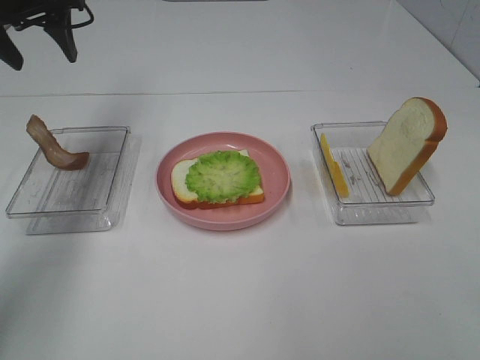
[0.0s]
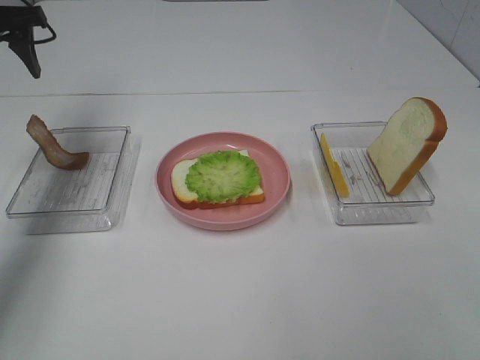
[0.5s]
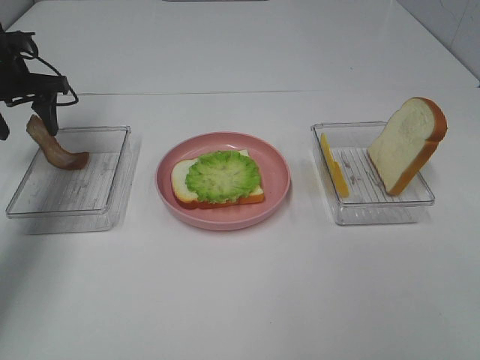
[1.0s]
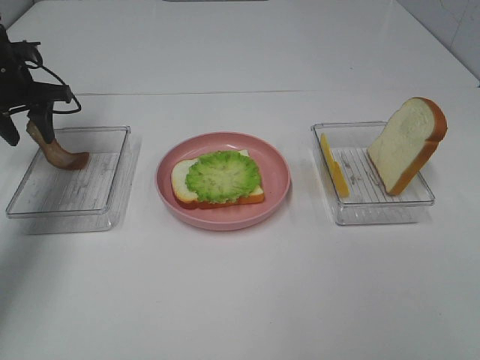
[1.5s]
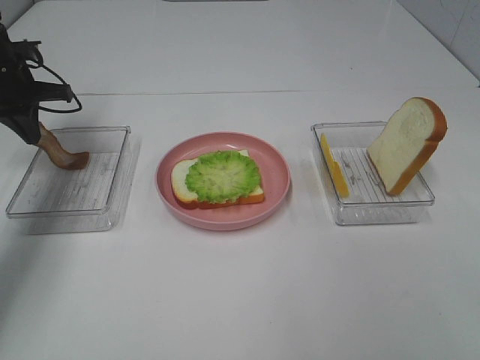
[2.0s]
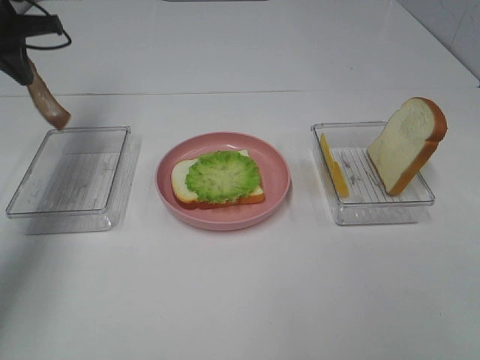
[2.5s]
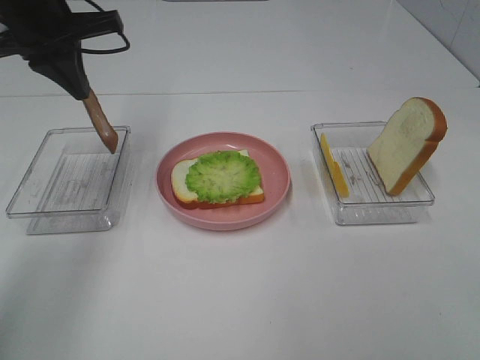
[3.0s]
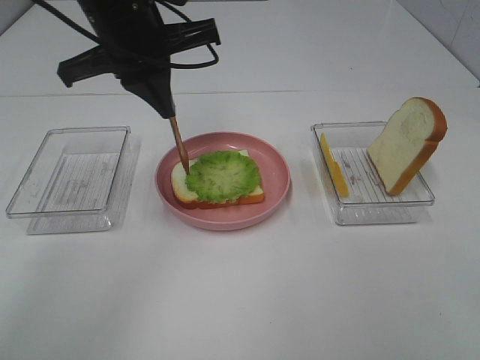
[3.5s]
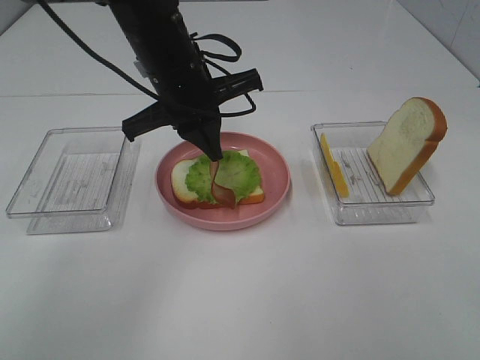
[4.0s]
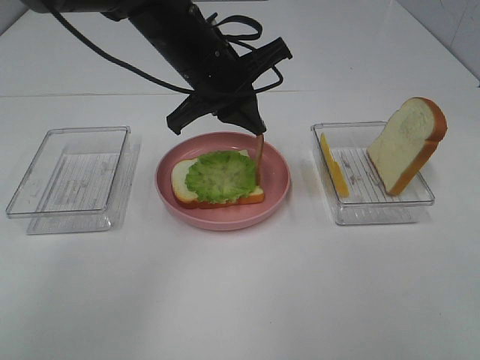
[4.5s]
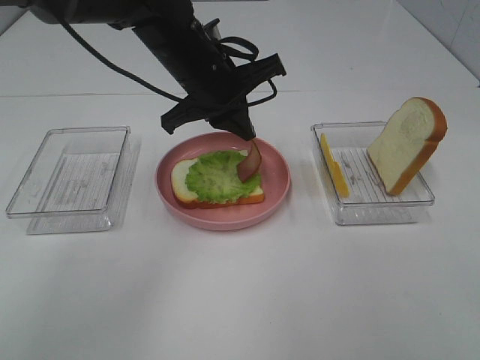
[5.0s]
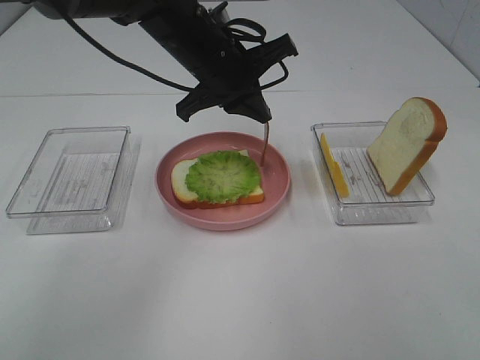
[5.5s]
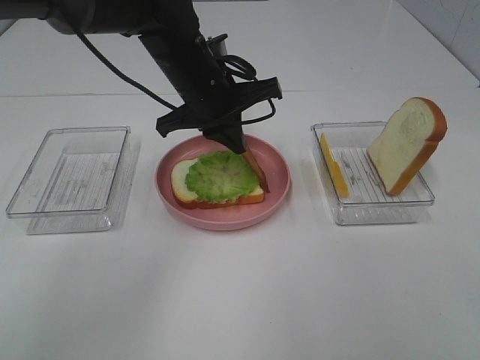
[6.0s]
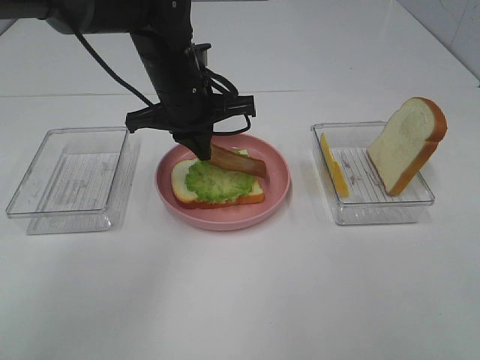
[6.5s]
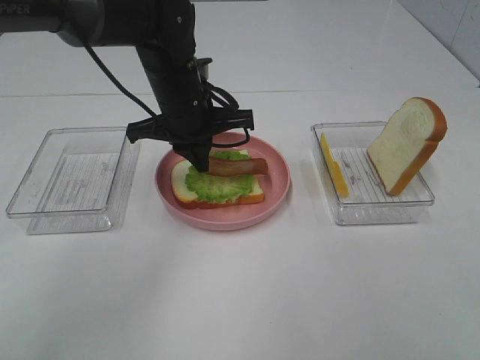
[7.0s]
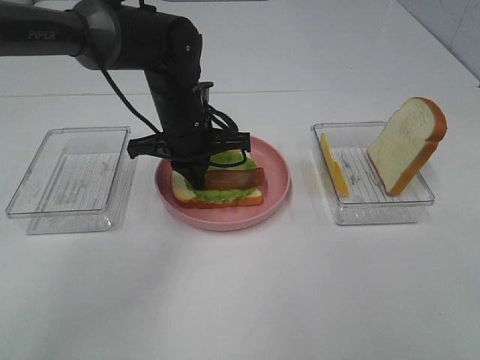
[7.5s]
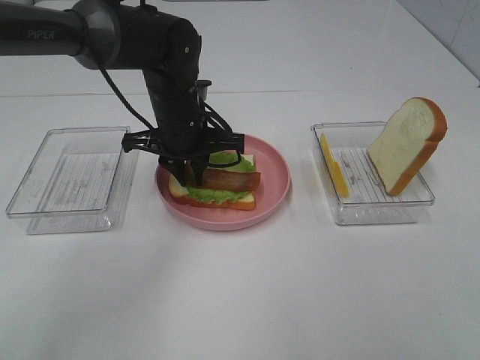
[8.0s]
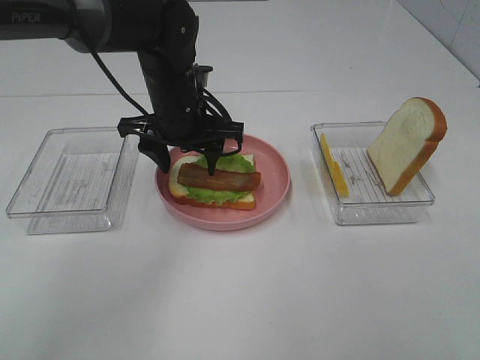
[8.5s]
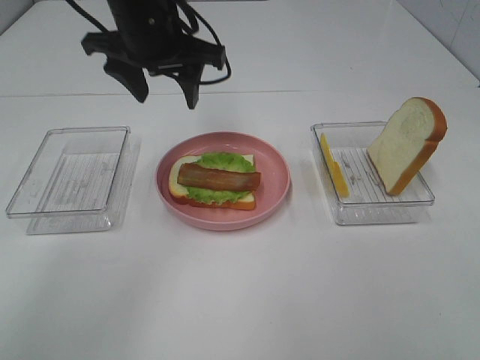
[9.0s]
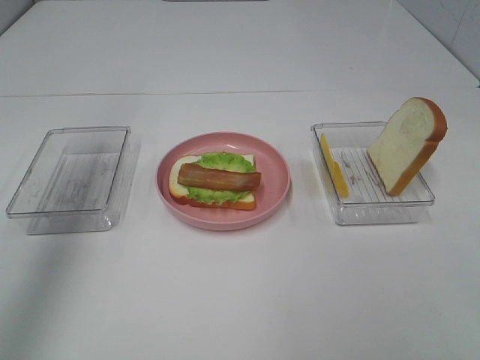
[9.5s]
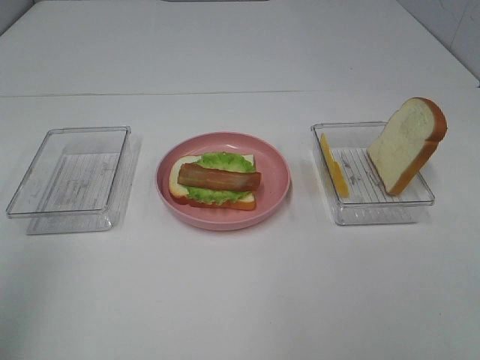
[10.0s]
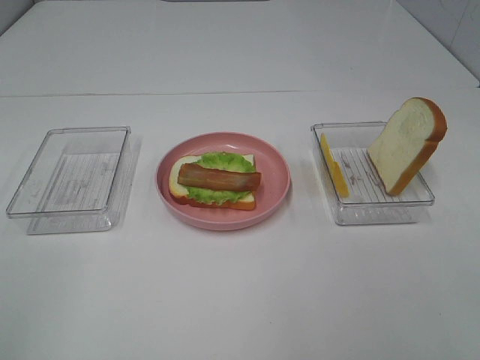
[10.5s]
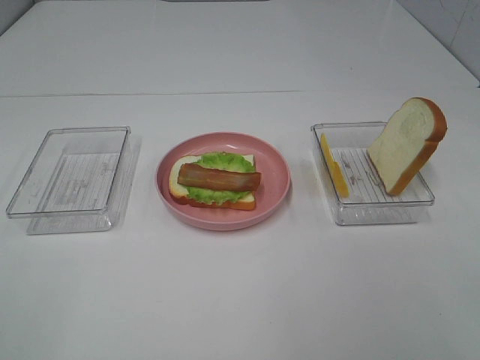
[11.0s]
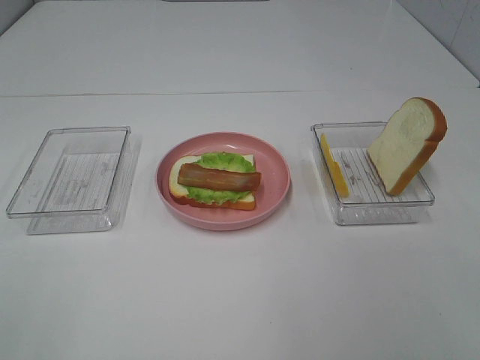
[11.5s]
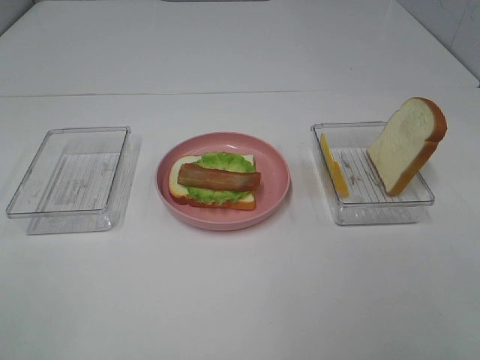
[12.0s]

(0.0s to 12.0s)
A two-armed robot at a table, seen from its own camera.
Task of the whole recording: Make sandwiches.
Step, 0.0s - 2.0s: Left hand:grab the bacon.
Step, 2.5s - 8.0s: Left hand:Place bacon on lettuce slice.
0.0s - 2.0s: The left gripper moves downward and to the left, approximately 15 cm, and closes its fingers.
2.0s - 4.0s: The left gripper goes approximately 25 cm to the right.
6.0s - 8.0s: The left gripper shifts about 5 cm downward.
8.0s - 10.0s: The left gripper moves backward, upward and to the left, some 50 cm, and opens its fingers.
10.0s - 12.0s: The left gripper moves downward and backward, roughly 20 cm.

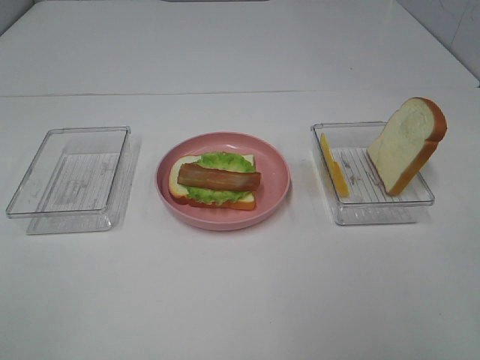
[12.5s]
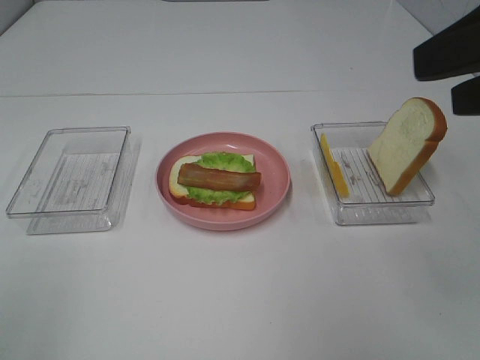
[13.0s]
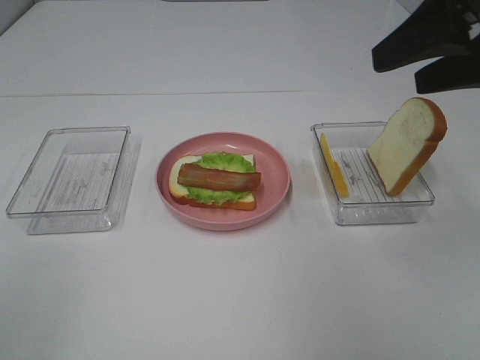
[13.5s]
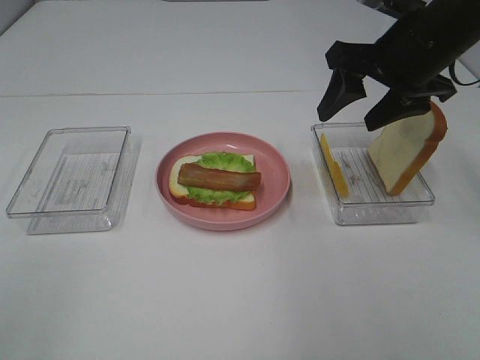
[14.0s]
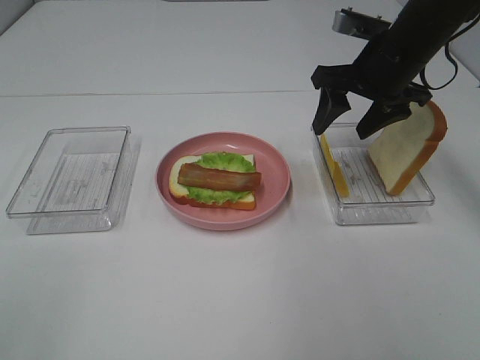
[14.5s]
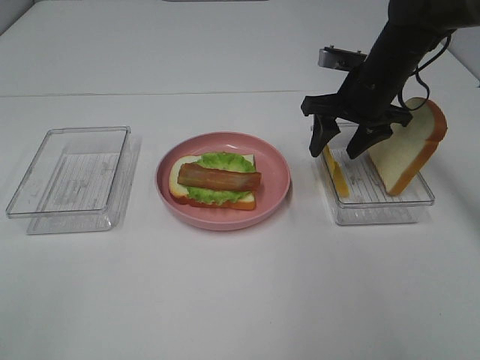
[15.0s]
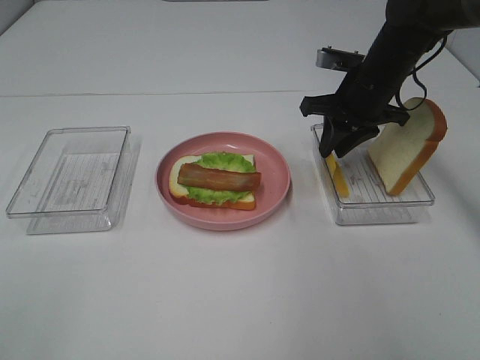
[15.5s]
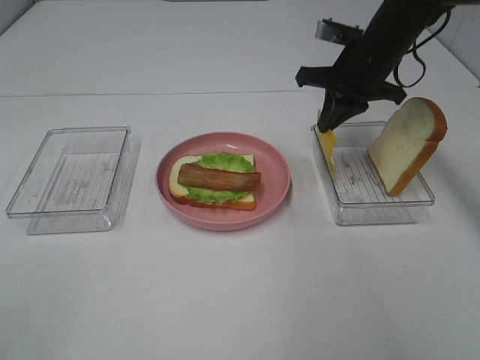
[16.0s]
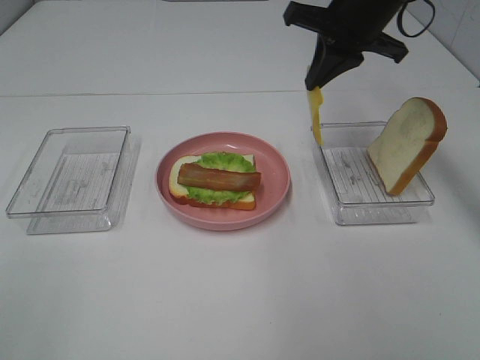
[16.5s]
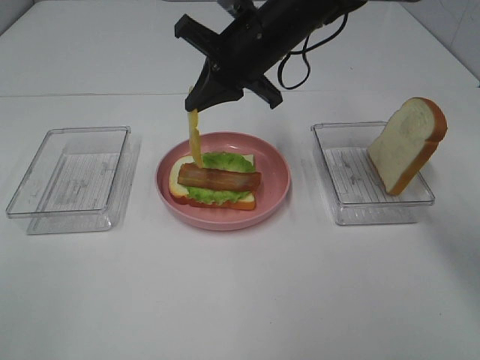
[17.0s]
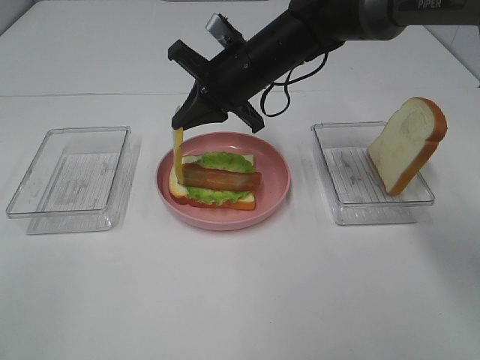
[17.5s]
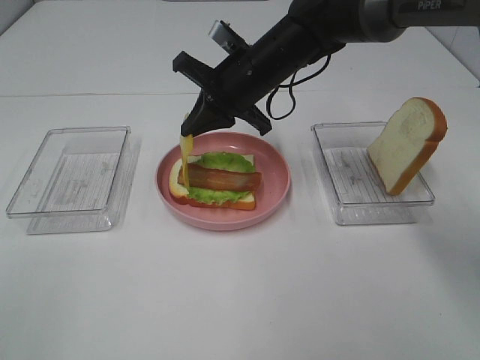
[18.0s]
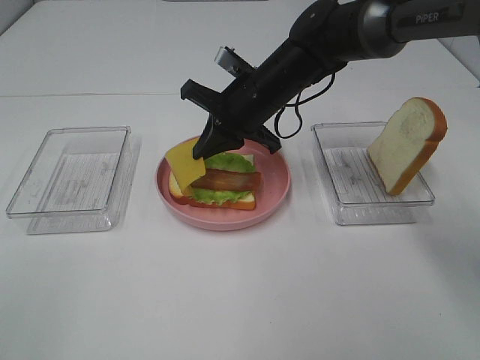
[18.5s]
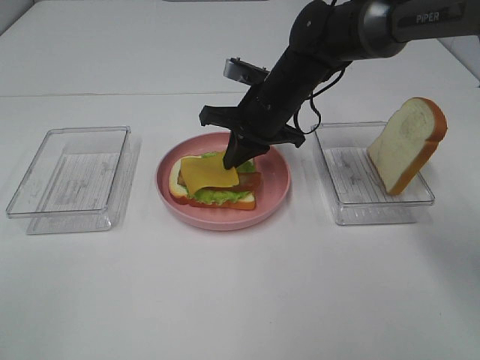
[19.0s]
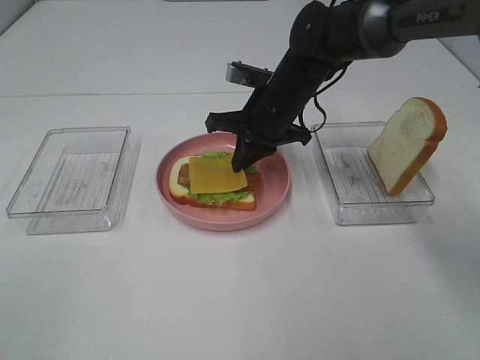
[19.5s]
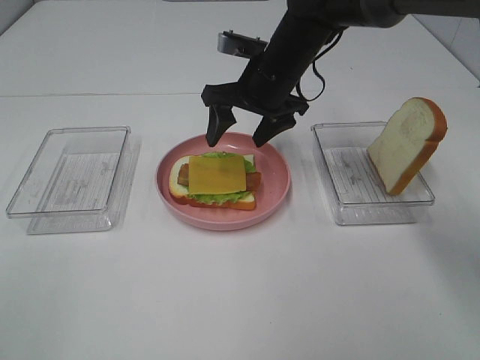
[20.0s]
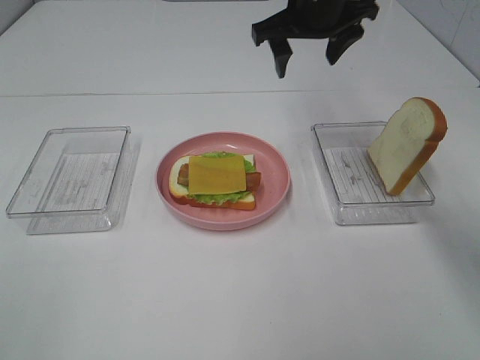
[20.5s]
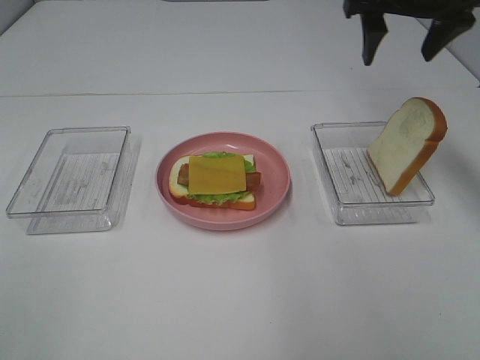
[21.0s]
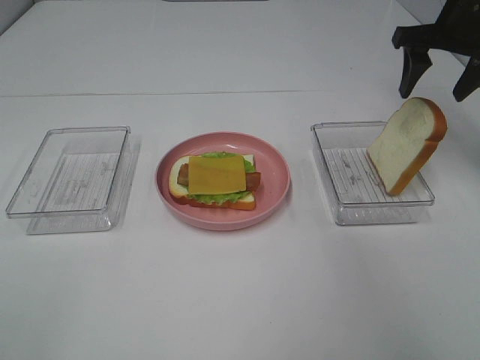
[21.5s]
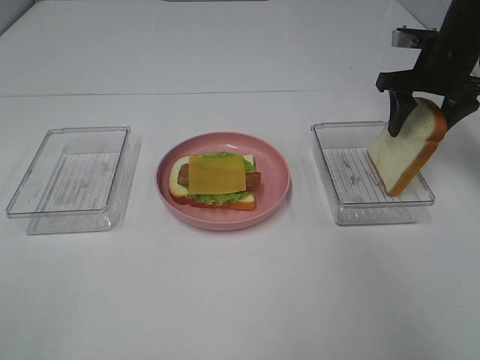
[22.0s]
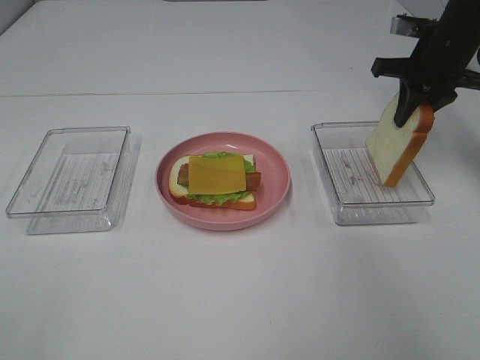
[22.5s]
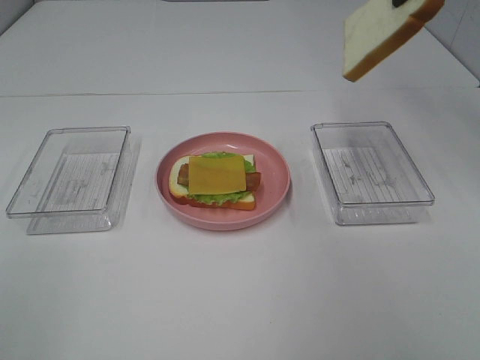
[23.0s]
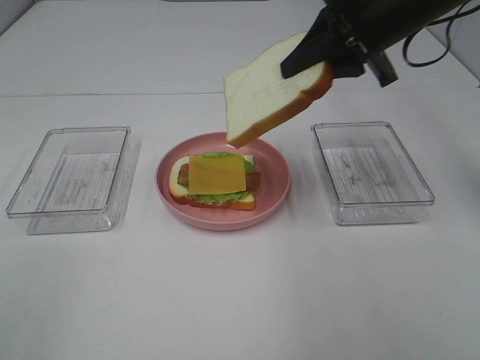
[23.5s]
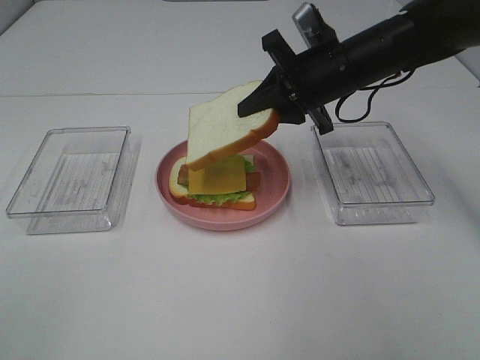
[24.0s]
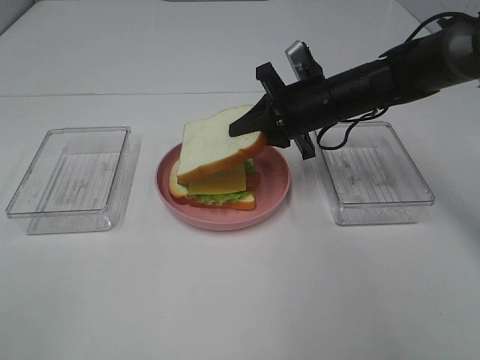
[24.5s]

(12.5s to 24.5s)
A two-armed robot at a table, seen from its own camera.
Task of the whole recording: Make sandwiches.
Step, 12.5s - 15.5s: Right hand:grab the cheese slice.
Step, 16.0s - 19.5s: Right hand:Place the cheese slice on top of the bacon.
Step, 20.0s - 22.0s: Right hand:grab the bread slice.
12.5s - 14.5s: The right gripper travels forward by about 35 cm.
14.5s - 16.5s: The right gripper travels upward and to the left by about 10 cm, and closes its fingers.
16.5s - 18.5s: The right gripper goes approximately 15 cm downward and to the left.
18.5s - 20.5s: The right gripper travels upward and to the right by approximately 15 cm, and opens up.
20.5s - 22.5s: The right gripper shifts approximately 20 cm to the right, and closes.
22.5s - 24.5s: The right gripper heads to the left and downward, covering approximately 15 cm.

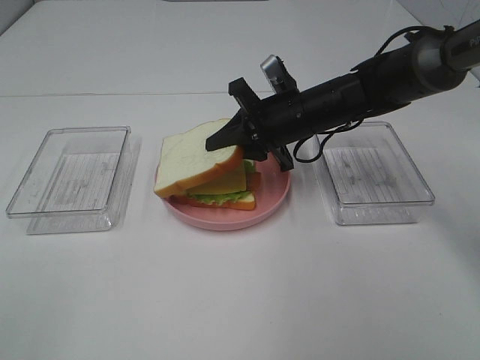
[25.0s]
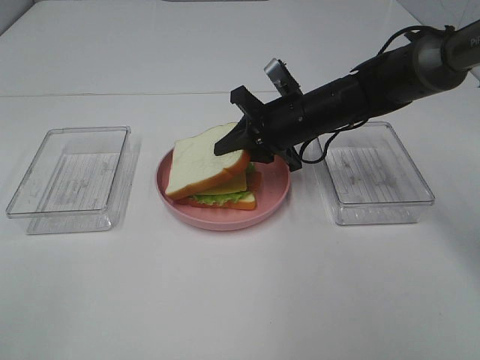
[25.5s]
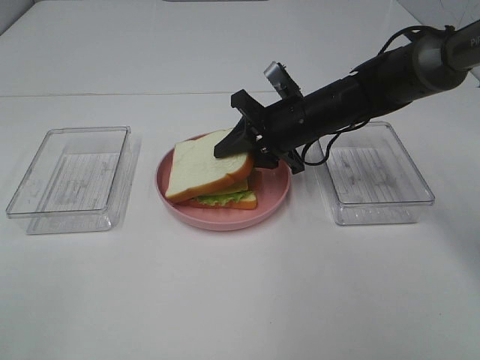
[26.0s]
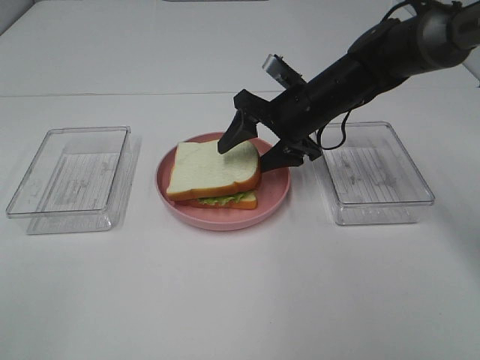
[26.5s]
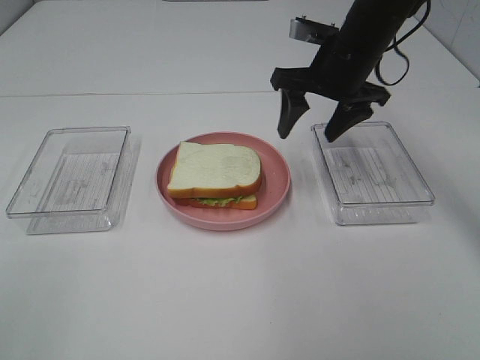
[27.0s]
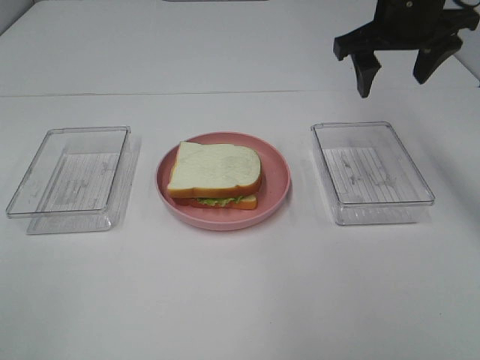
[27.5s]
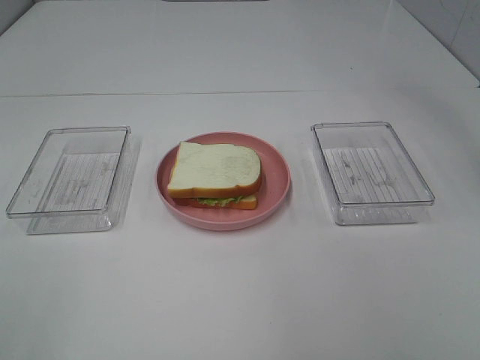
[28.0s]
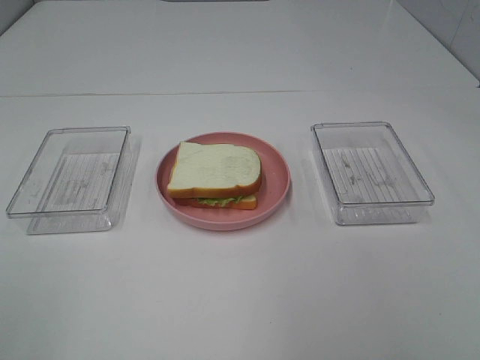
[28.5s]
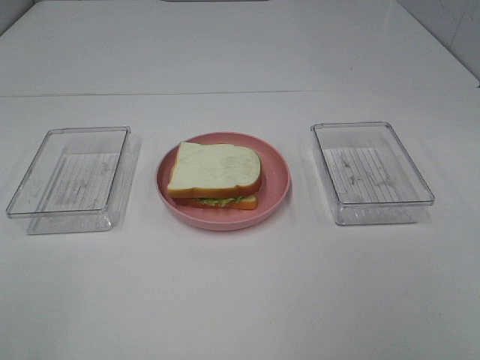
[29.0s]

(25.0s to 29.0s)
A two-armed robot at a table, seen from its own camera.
Task of the whole recording: Make sandwiches.
25.0s - 27.0s: The right gripper shifts roughly 10 cm upward, and opens its fingers.
27.0s - 29.0s: The right gripper goes approximately 40 cm backward.
